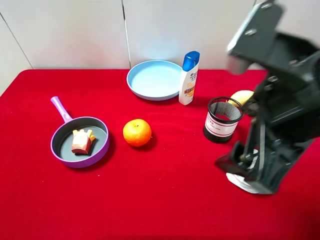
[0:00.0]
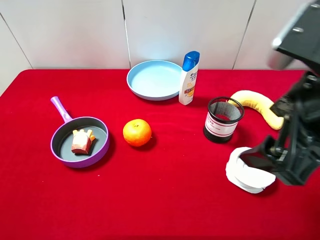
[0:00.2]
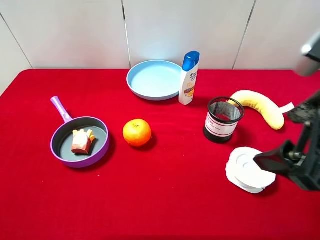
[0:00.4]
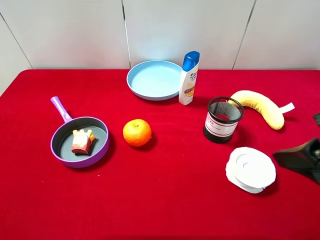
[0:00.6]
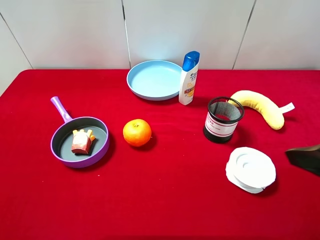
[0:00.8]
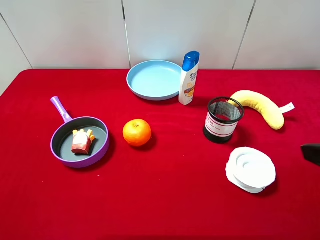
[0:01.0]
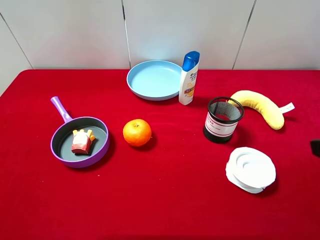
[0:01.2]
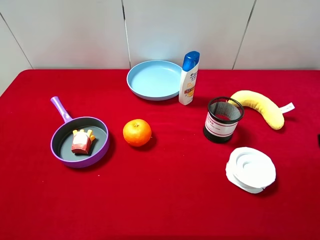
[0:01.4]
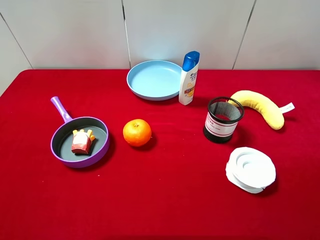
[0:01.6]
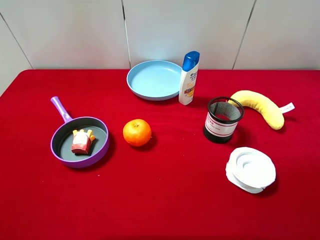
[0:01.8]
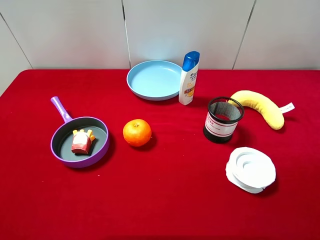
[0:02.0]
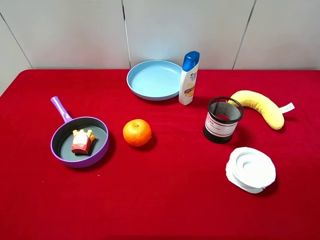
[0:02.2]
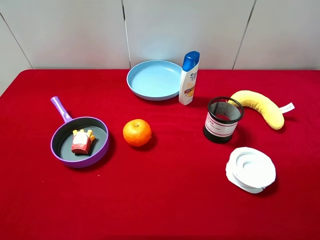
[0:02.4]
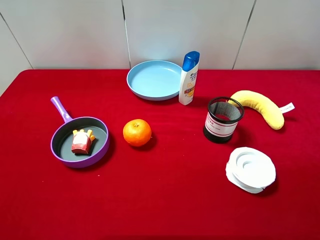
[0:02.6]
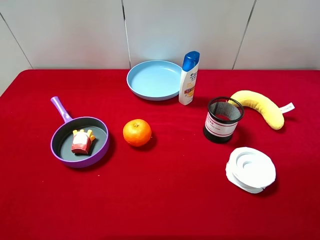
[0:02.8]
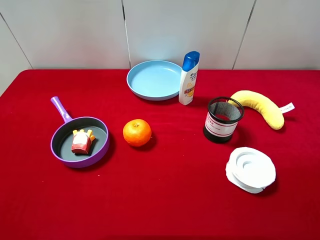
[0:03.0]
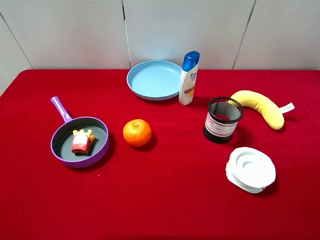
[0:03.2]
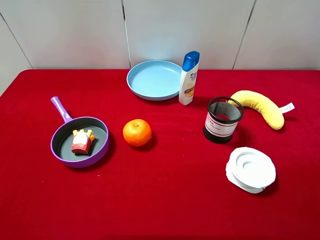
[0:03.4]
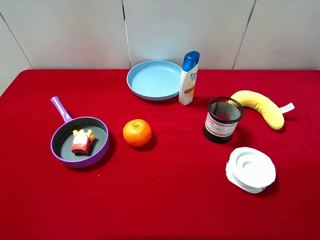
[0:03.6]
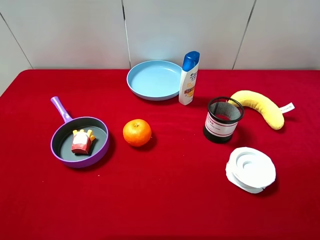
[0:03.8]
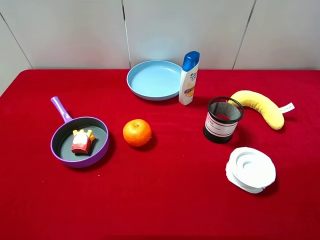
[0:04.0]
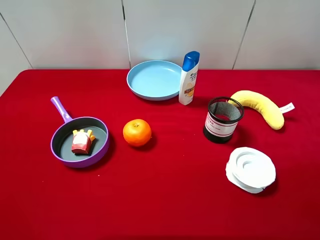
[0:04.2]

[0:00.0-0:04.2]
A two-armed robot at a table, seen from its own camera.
Task of the whole recording: pick up an item with a gripper and place it in a random container on the desktop.
0:00.0 to 0:01.4: The right gripper goes roughly 15 cm to the right.
0:02.8 to 0:04.2: Both grippers stay about where they are.
